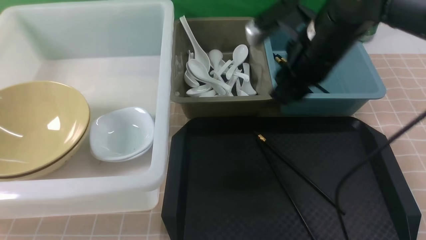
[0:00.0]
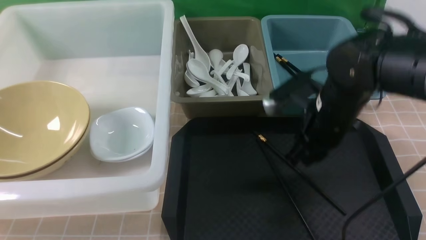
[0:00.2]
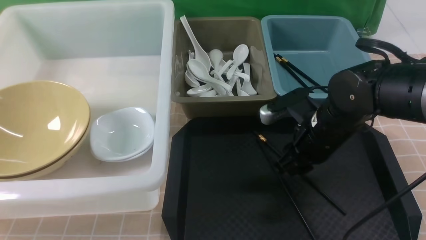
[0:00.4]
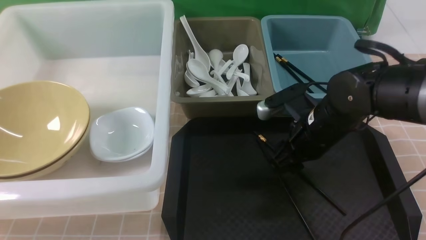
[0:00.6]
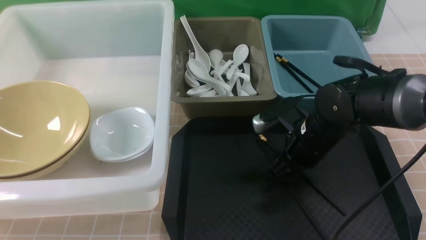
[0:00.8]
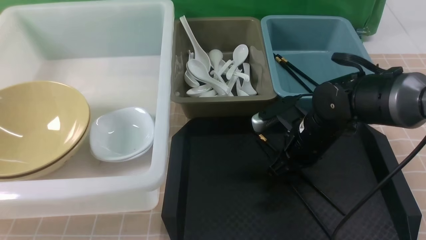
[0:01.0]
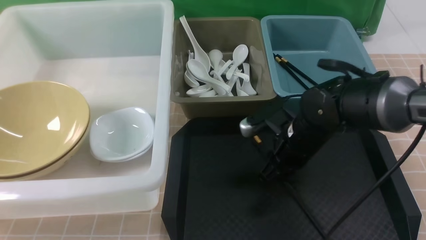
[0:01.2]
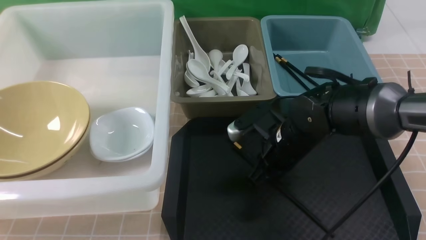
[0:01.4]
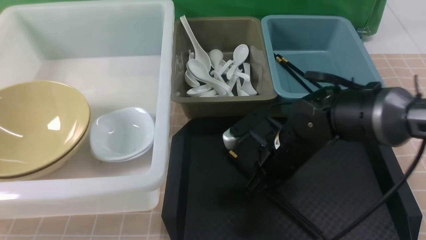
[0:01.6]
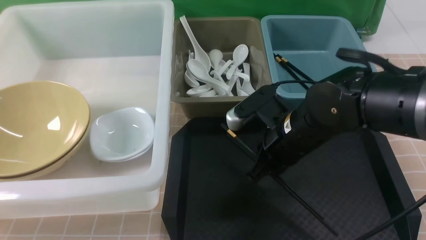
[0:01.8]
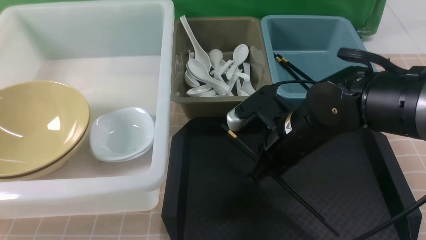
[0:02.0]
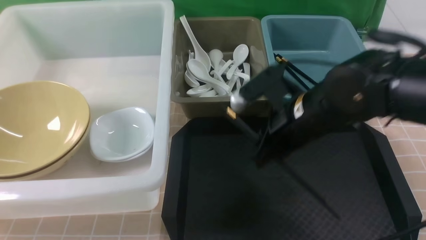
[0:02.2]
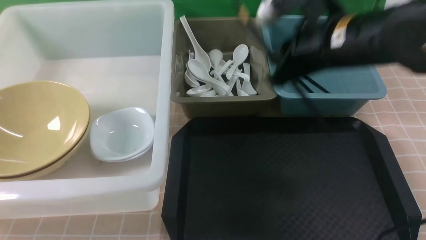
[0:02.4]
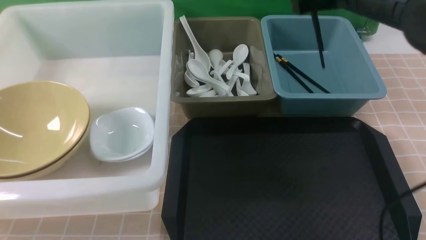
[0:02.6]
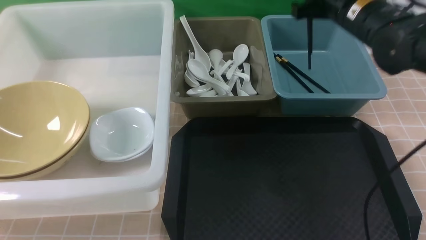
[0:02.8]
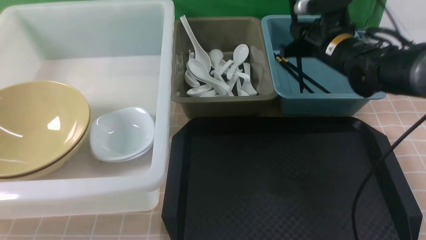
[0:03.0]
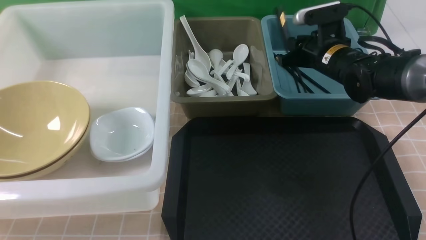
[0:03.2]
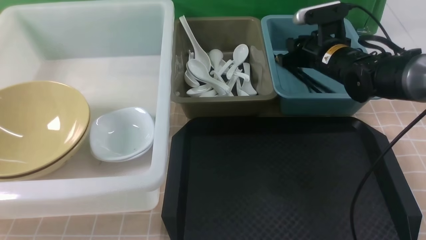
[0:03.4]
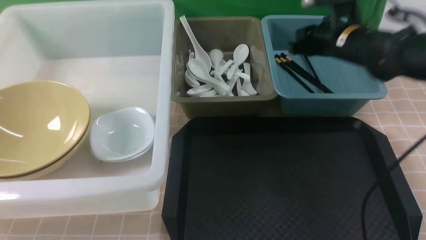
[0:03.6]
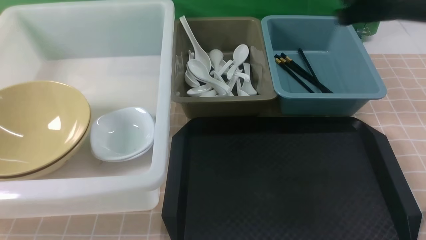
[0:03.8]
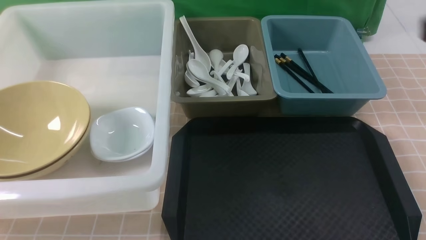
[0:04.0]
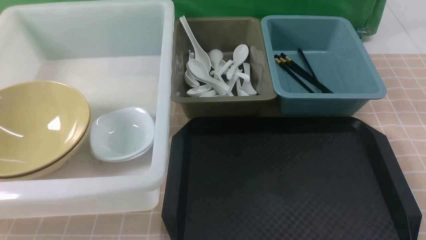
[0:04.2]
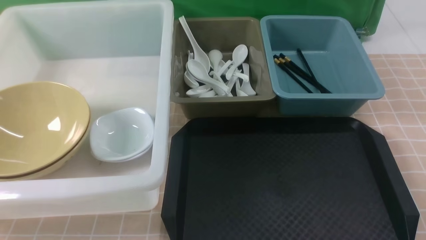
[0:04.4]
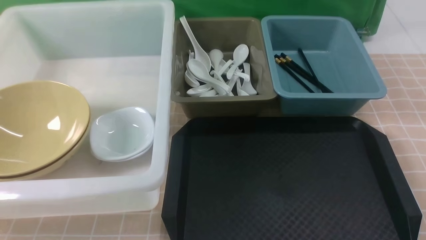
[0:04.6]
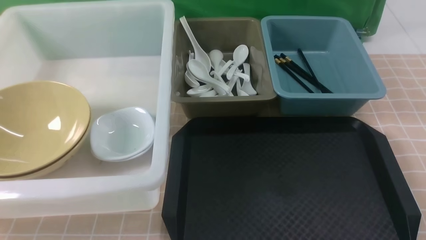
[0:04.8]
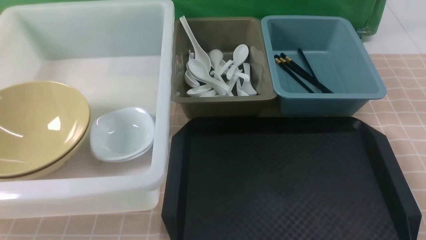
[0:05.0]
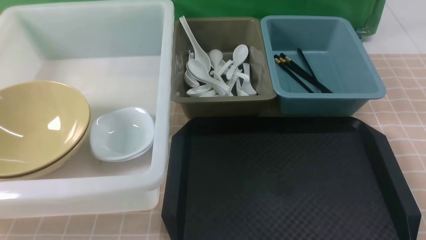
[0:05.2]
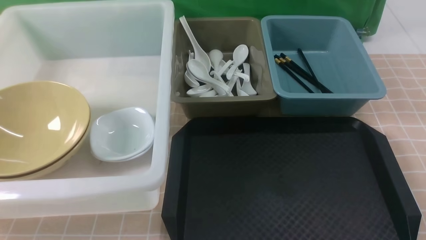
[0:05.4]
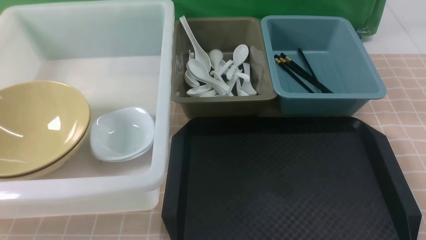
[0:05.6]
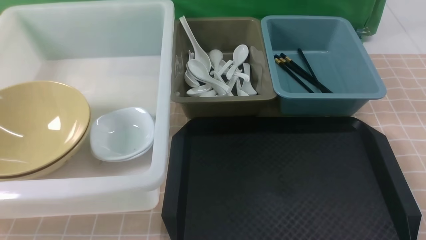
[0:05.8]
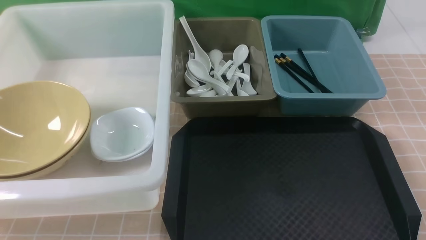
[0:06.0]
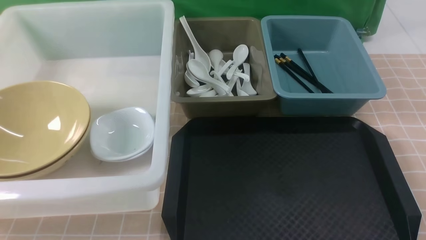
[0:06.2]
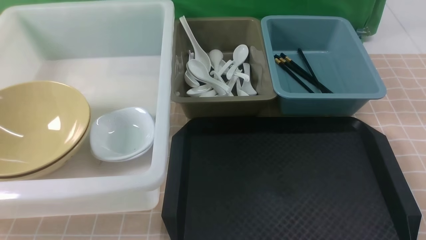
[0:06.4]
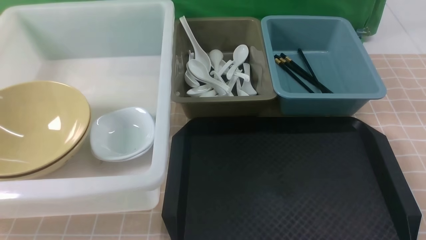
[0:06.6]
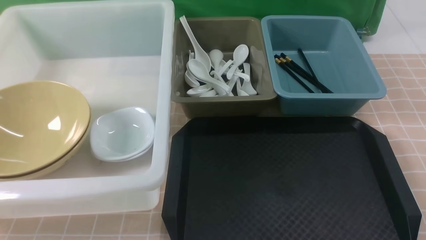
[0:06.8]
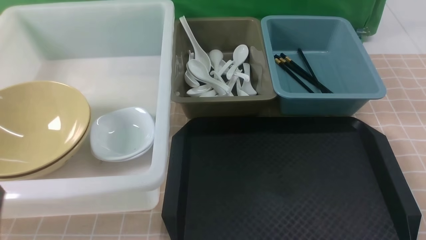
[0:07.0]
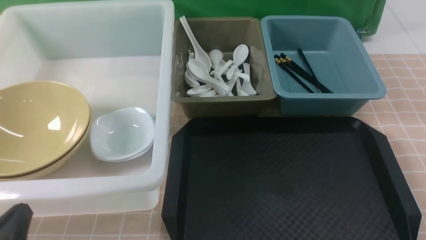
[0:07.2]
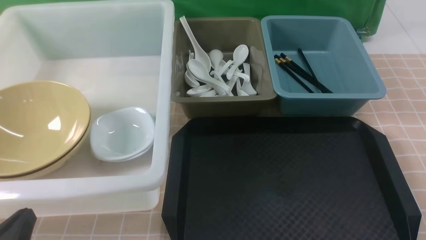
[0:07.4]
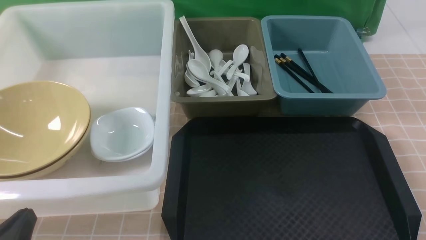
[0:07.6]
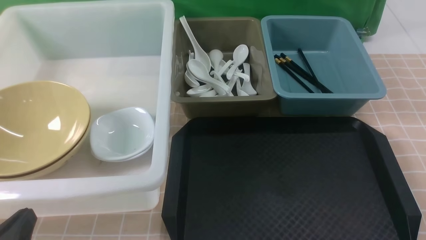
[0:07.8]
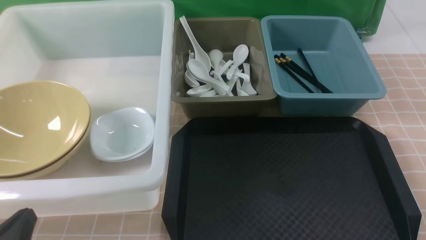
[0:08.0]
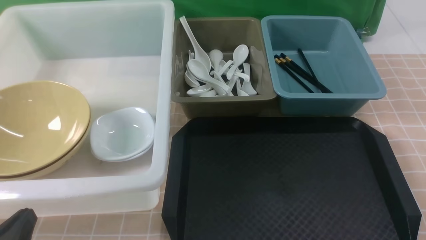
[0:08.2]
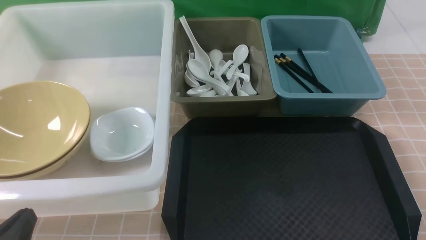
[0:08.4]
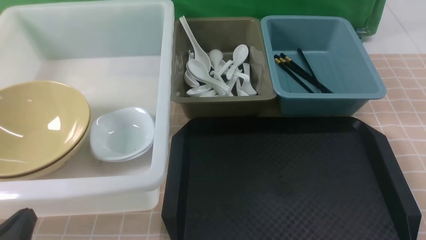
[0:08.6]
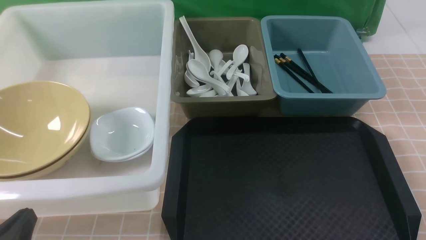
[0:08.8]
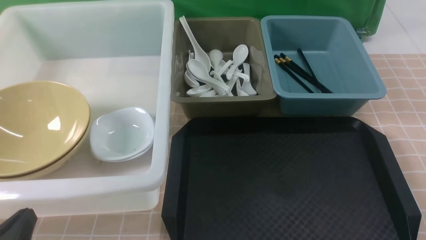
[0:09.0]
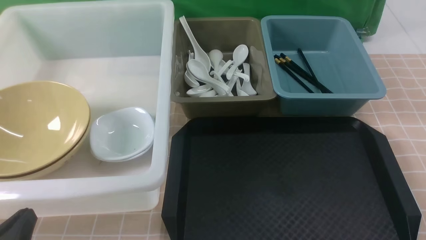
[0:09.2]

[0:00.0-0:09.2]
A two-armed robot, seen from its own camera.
Task of the whole recording: on brown table put chopsticks spoon bowls plates into blue grey white boxes.
Step, 0:00.0 to 0:02.0: use the right arm to grab the chopsticks.
Step, 0:02.2 to 0:03.4: use the right arm to put the chopsticks into the small storage box on the right.
0:00.0 to 0:01.6: The right gripper is displaced downward and backward by roughly 10 cm, and closes up.
0:01.6 to 0:03.0: The right gripper travels forward and to the right by about 20 cm.
0:03.0 to 0:04.6: The right gripper moves backward, about 40 cm.
0:06.2 to 0:07.6: The left gripper shifts roughly 10 cm downward.
0:07.6 to 0:09.2: Neither gripper changes place.

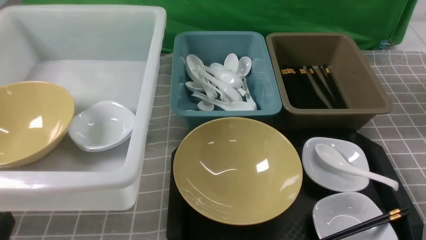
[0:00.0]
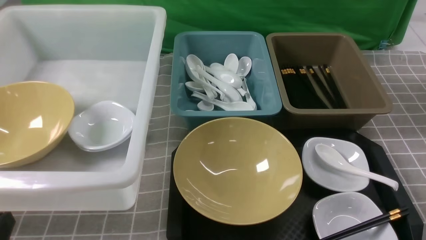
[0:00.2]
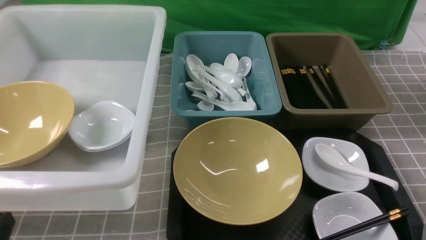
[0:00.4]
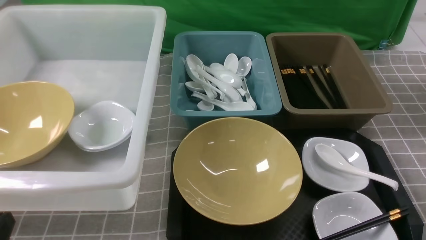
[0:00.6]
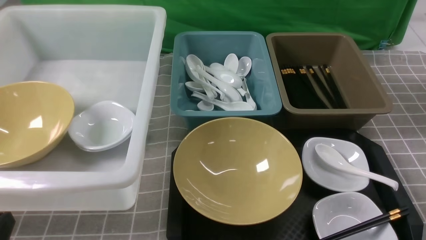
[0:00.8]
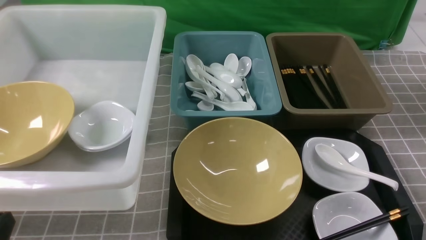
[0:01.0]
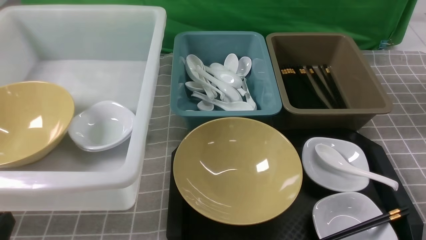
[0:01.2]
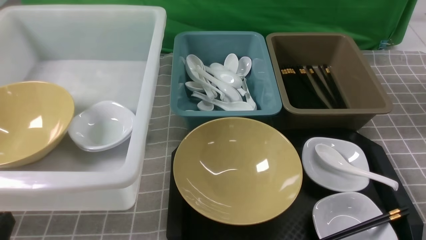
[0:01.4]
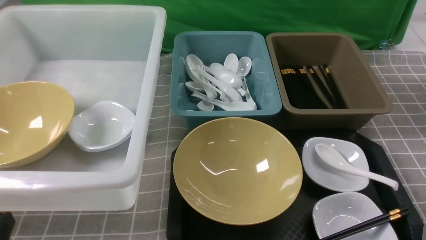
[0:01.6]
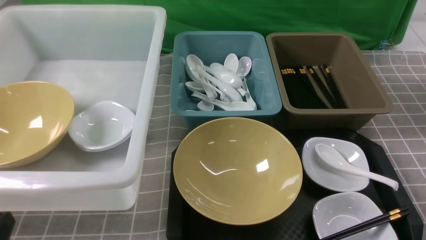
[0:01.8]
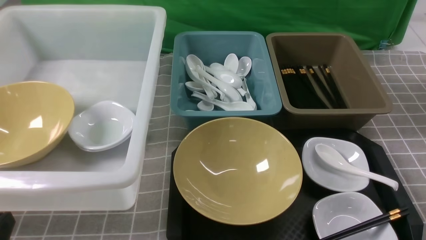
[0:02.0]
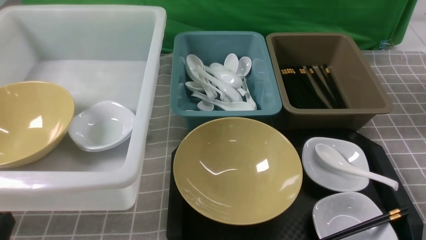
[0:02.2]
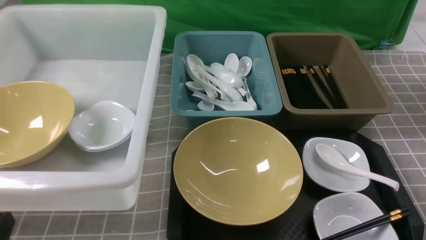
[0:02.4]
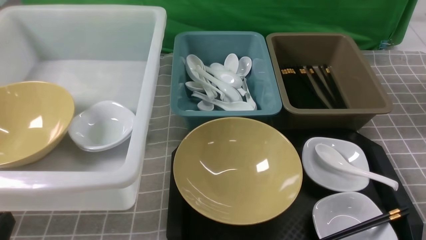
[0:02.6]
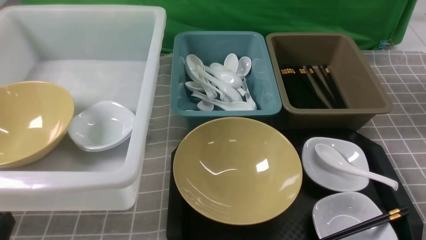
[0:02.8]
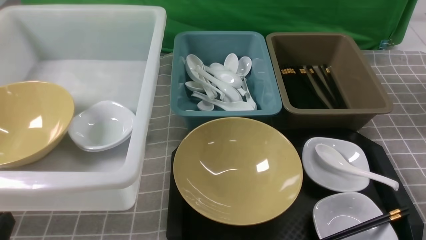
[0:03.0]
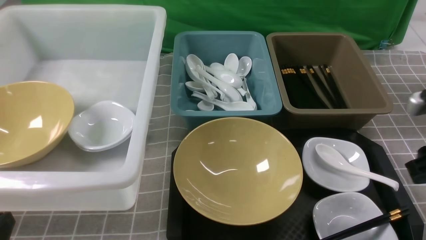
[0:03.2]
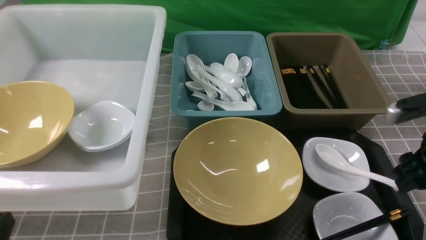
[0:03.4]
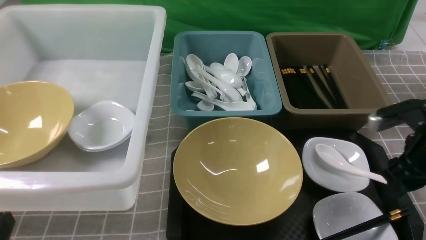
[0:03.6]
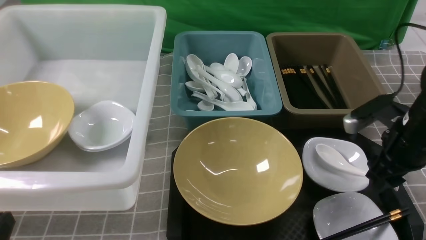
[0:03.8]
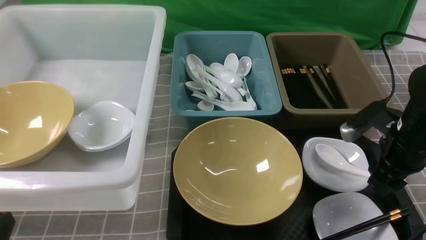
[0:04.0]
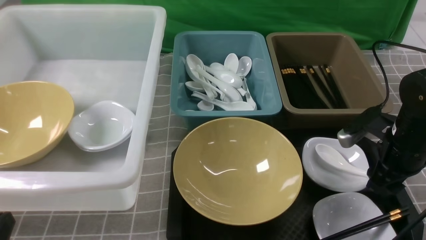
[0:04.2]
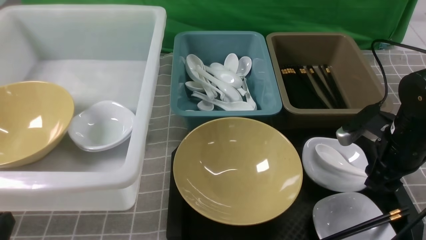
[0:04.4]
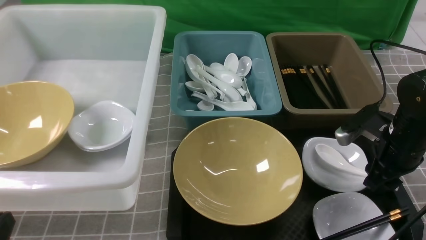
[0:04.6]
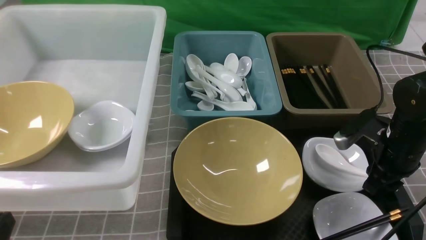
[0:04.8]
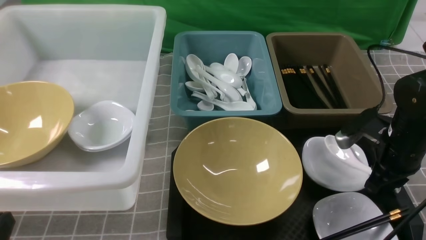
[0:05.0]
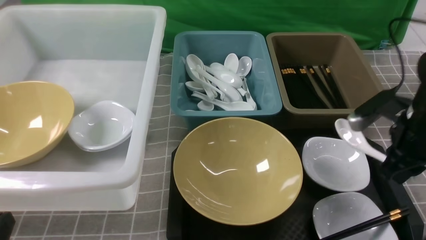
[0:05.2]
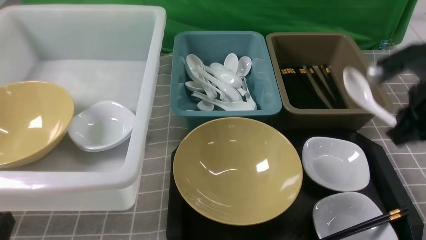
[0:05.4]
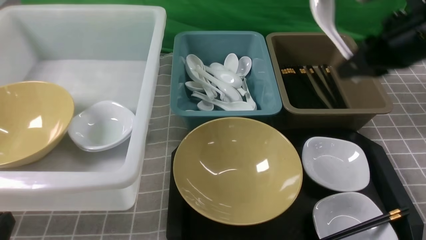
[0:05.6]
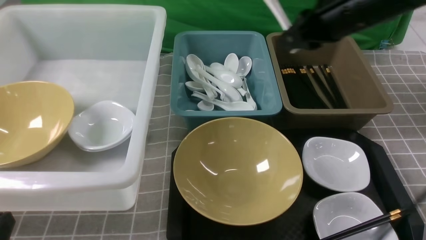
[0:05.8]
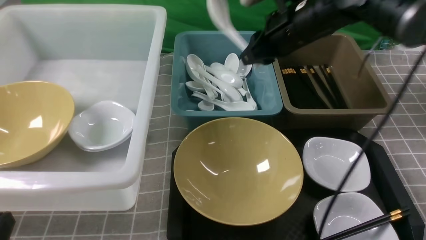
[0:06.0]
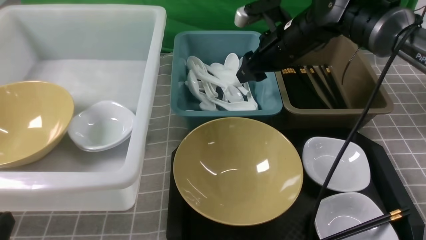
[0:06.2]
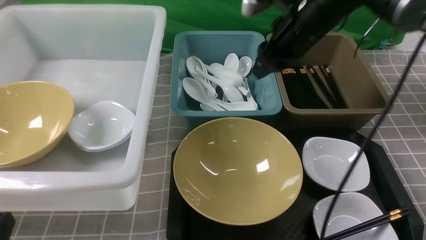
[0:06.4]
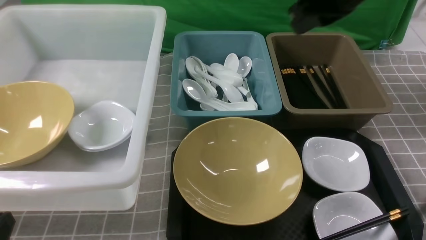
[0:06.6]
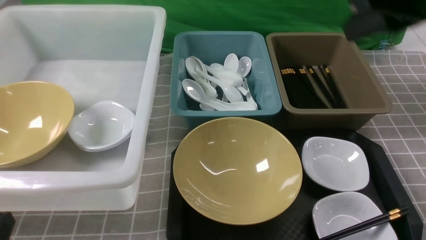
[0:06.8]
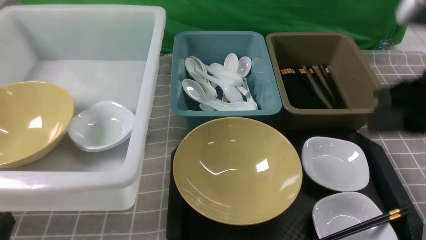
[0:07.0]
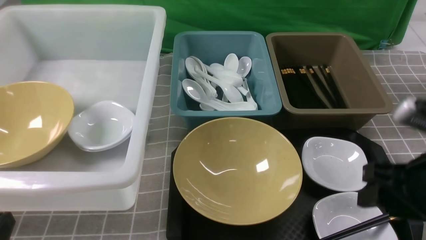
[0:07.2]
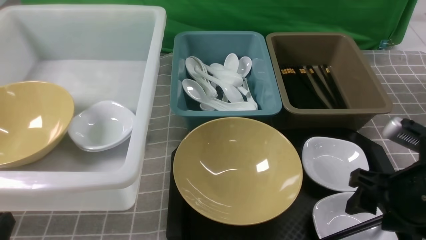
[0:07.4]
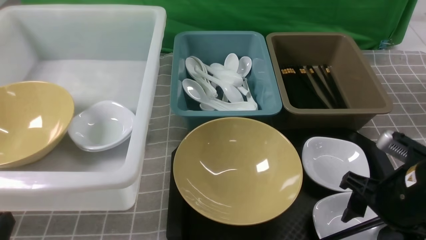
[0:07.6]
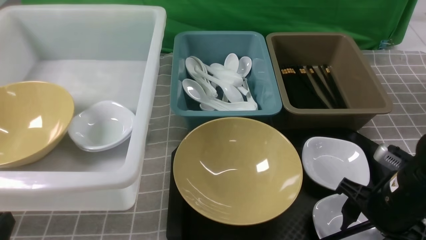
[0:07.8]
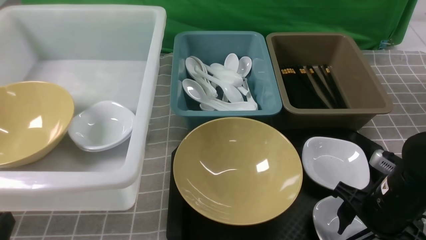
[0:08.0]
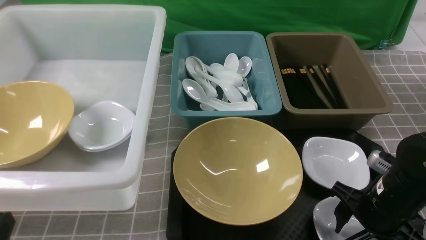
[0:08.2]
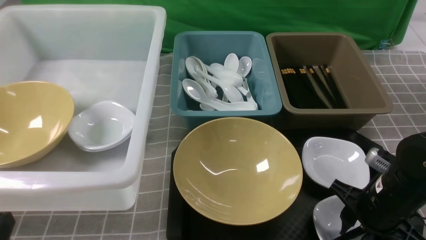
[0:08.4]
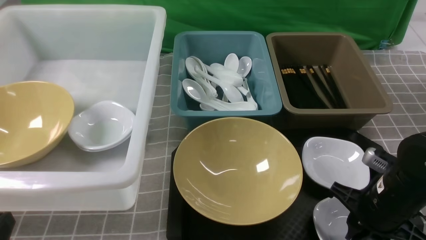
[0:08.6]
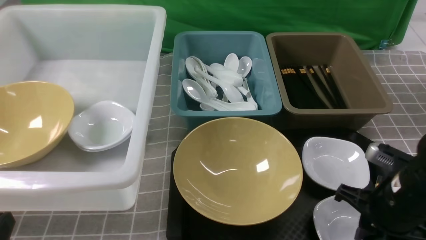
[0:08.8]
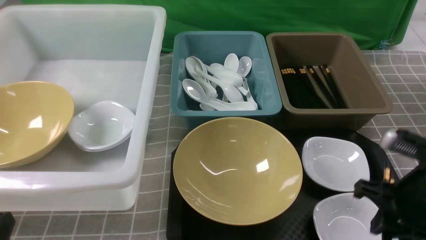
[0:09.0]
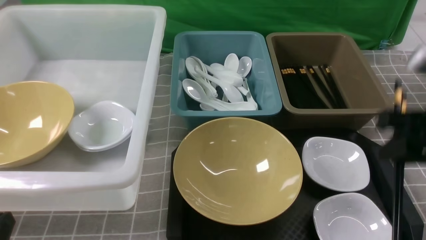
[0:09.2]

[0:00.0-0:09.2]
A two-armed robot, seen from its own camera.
Task of the whole recording: on grey table put chopsticks spoon bowls plates into blue grey white boxes.
Step, 0:00.0 to 0:05.2: use the right arm to grab the soup spoon in the middle.
Step, 0:05.6 to 0:06.4: use the right arm to put the soup spoon into the small storage box in the middle.
Step, 0:06.6 to 0:09.0: use the right arm to grab the chopsticks.
0:00.0 to 0:01.6: Neither gripper changes place.
0:03.0 to 0:04.6: The right gripper heads forward and downward, covering about 15 cm, and opens its fingers.
0:04.6 to 0:06.2: The right gripper is displaced to the left, forward and upward by roughly 20 cm, and closes, then reopens.
0:06.2 to 0:07.6: The right gripper travels backward and to the right by roughly 25 cm, and closes, then reopens.
0:07.6 to 0:09.2: The right gripper shifts about 10 cm upward, and closes.
